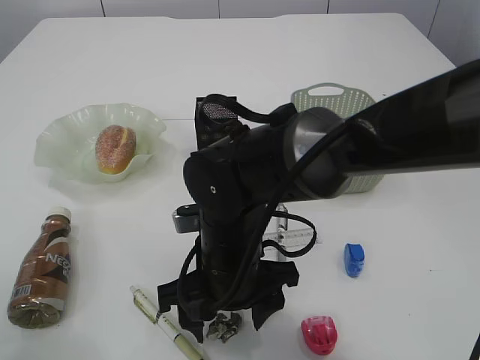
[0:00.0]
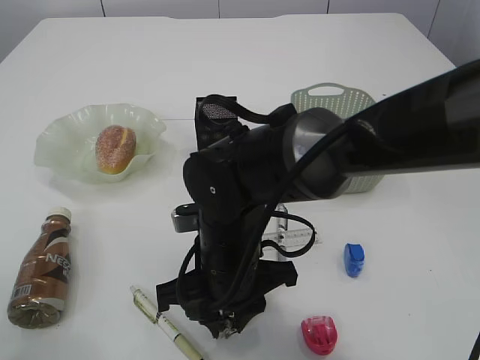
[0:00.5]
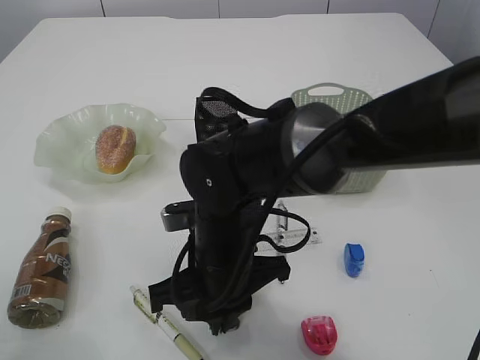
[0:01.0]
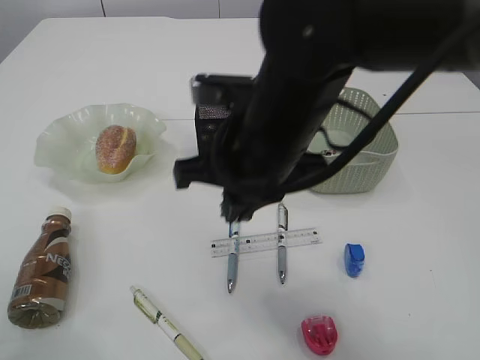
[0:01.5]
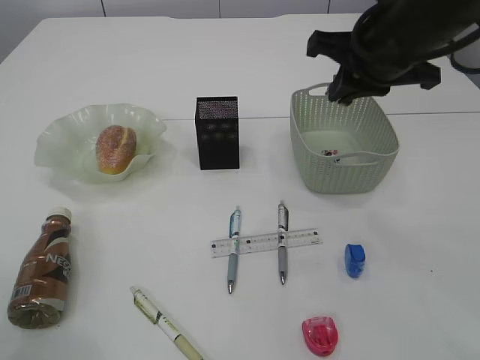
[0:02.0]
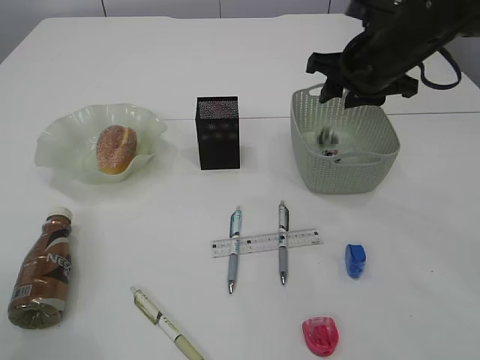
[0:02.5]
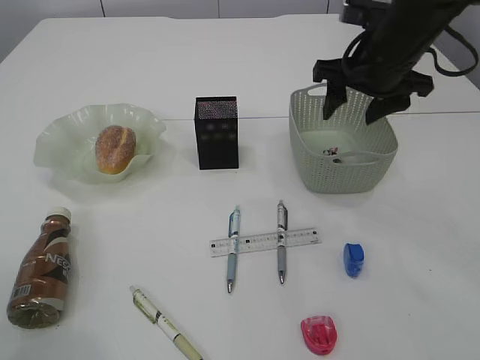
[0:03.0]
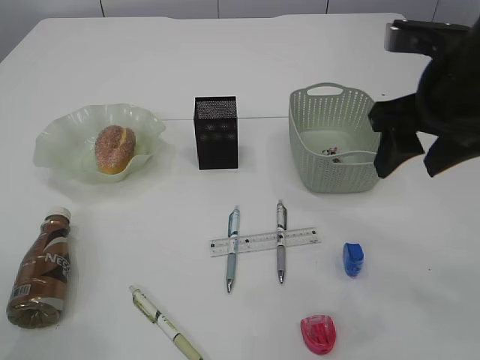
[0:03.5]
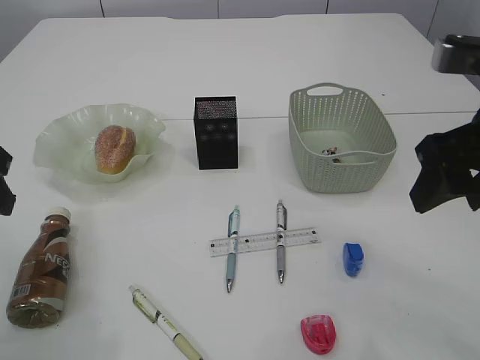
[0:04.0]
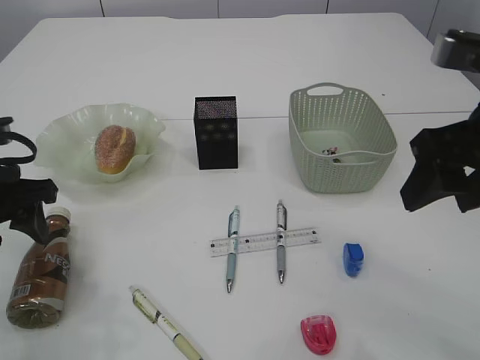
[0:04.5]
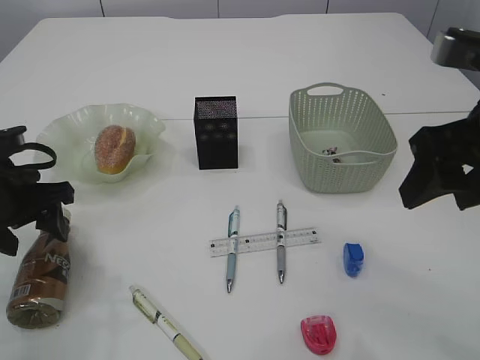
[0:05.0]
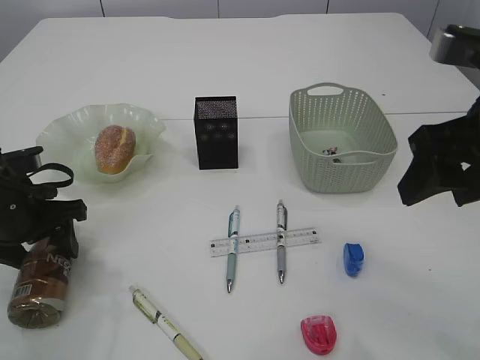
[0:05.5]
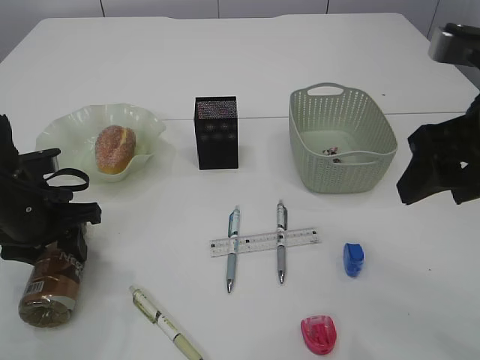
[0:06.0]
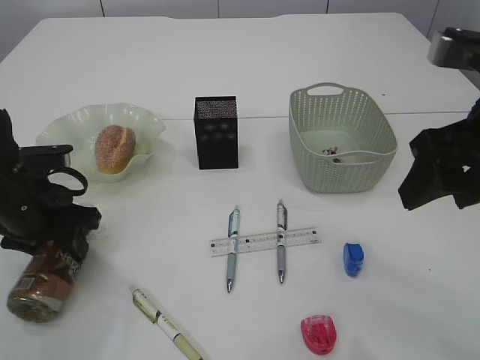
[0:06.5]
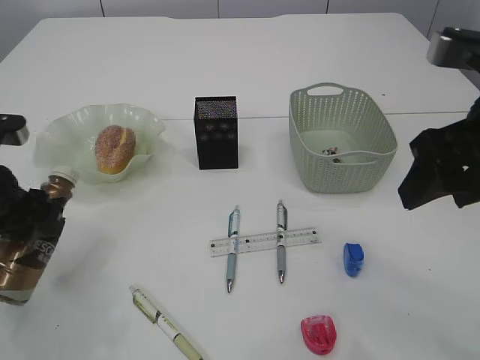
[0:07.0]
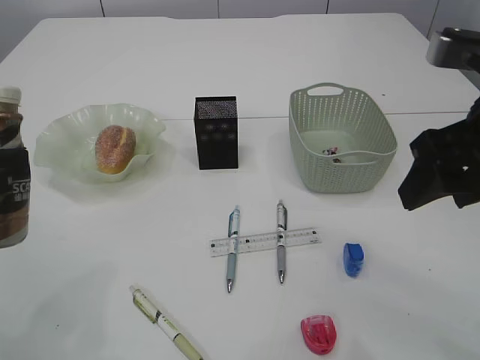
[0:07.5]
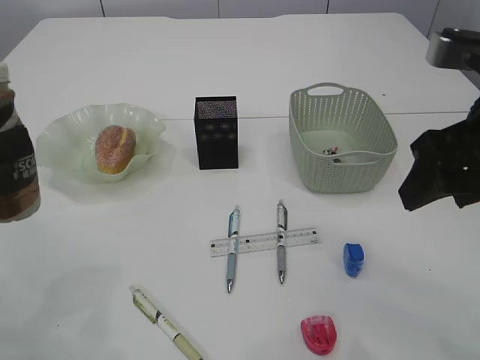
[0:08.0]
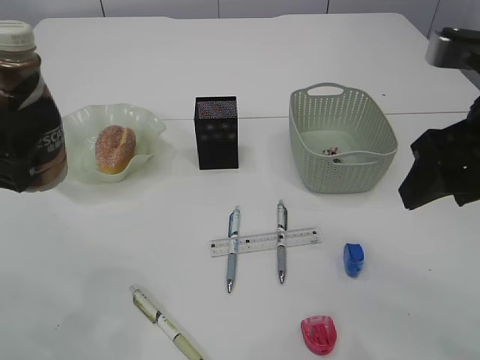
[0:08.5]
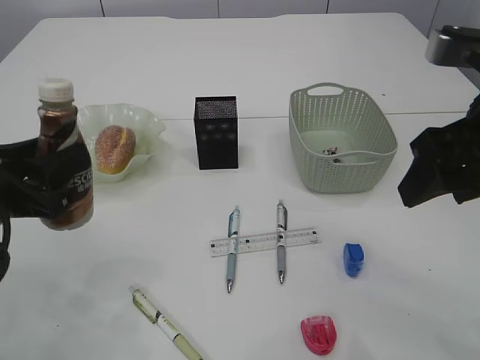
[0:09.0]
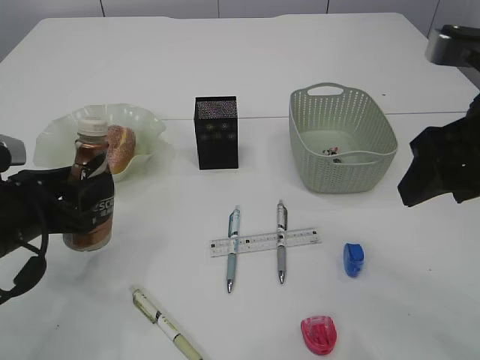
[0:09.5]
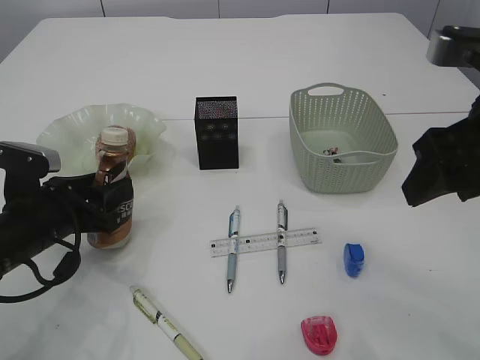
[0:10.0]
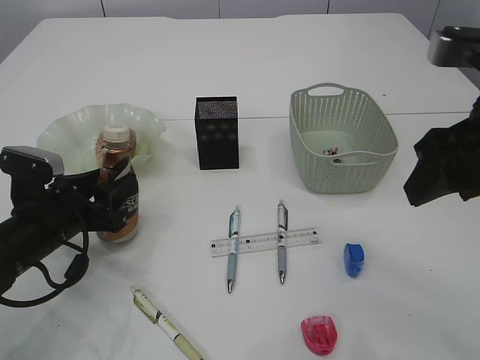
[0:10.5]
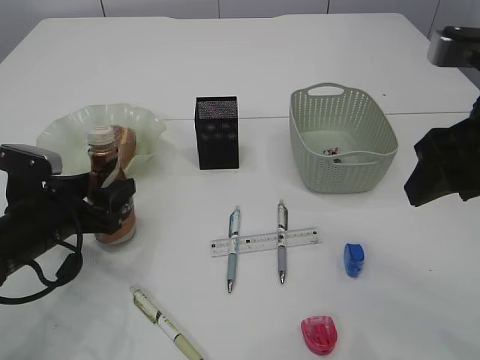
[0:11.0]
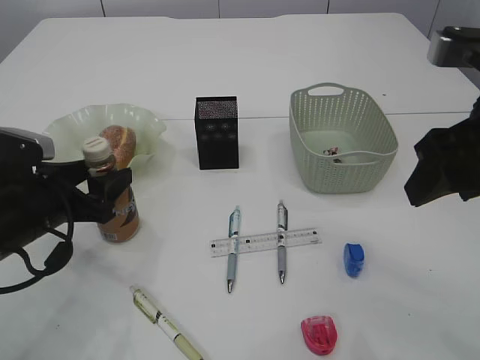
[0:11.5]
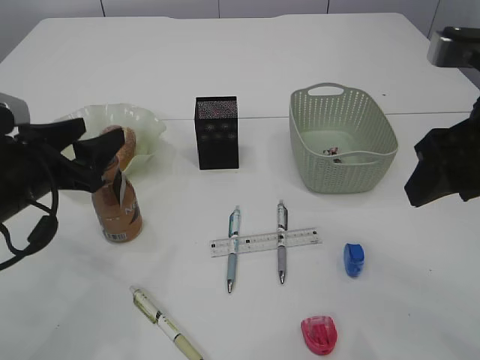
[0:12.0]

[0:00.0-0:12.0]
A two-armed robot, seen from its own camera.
Step, 0:02.0 to 0:02.5: Place the waste paper in the basket.
Step, 0:03.0 to 0:07.0: Pick up the bottle with the left arm.
0:00.0 to 0:02.0: The right gripper shifts some 25 cm to the right, upward and forward, and closes its fingers.
0:02.0 to 0:04.0: The right gripper shifts some 15 cm backward and to the right, and opens. The left gripper moves approximately 5 cm.
0:04.0 to 0:06.0: The left gripper is displaced downward and forward by some 15 cm.
0:06.0 to 0:08.0: The left gripper shifts roughly 15 cm backward and upward.
0:08.0 to 0:10.0: The left gripper is displaced downward and forward by roughly 15 cm.
0:10.0 to 0:12.0: The left gripper shifts about 5 cm upward, and opens up.

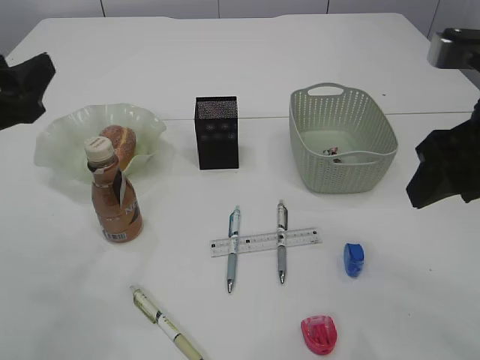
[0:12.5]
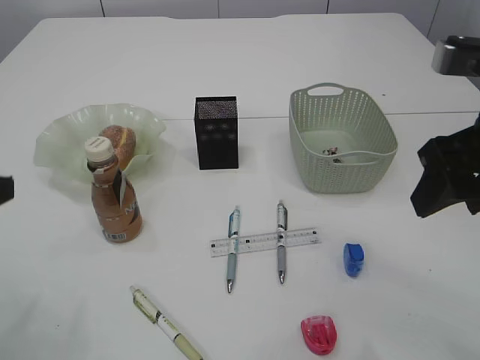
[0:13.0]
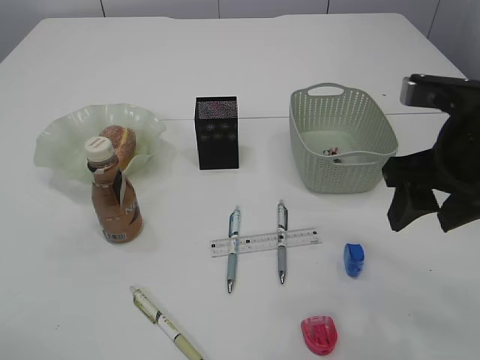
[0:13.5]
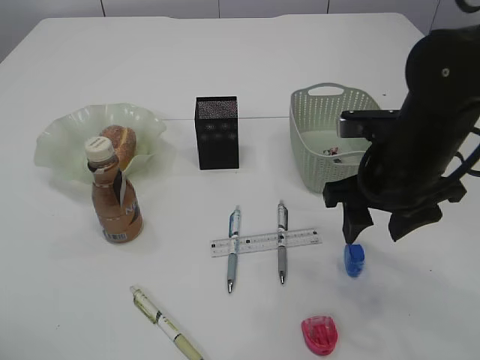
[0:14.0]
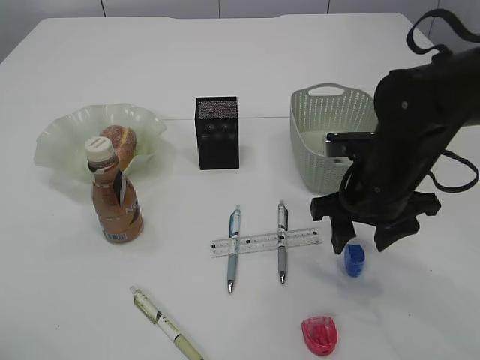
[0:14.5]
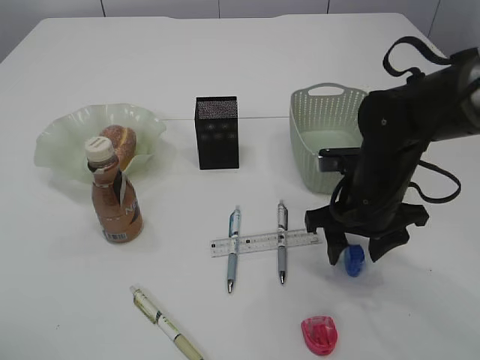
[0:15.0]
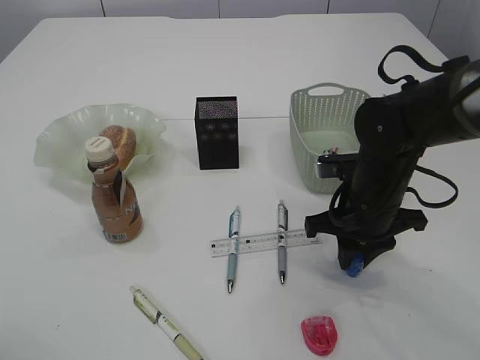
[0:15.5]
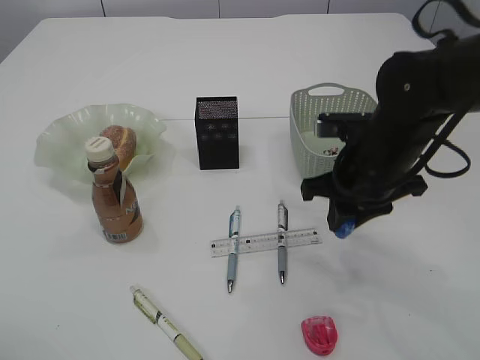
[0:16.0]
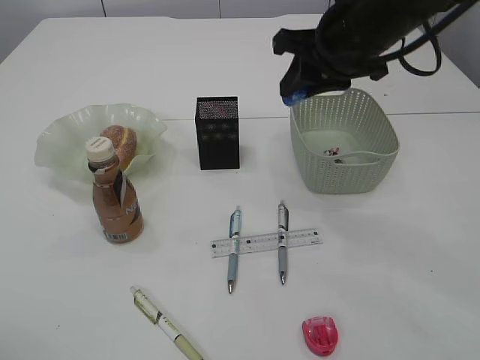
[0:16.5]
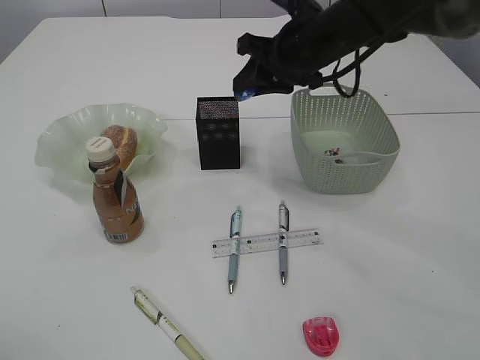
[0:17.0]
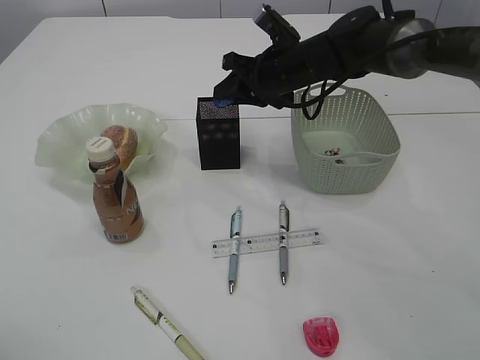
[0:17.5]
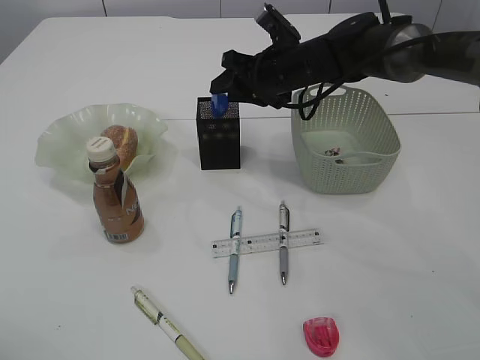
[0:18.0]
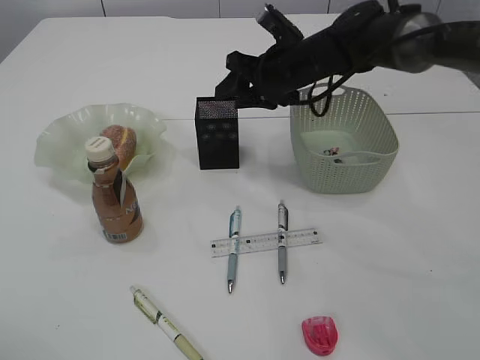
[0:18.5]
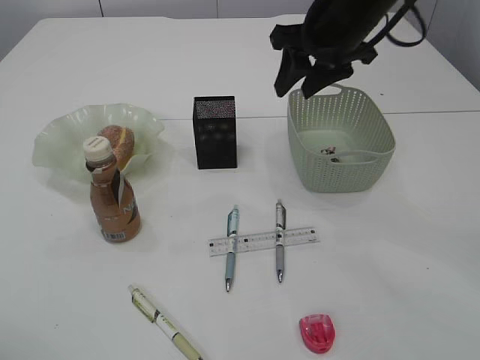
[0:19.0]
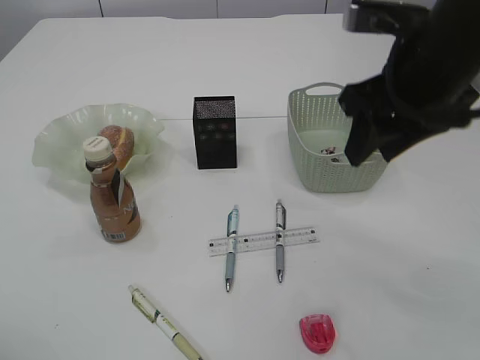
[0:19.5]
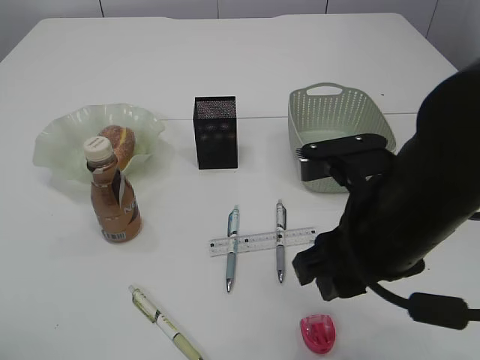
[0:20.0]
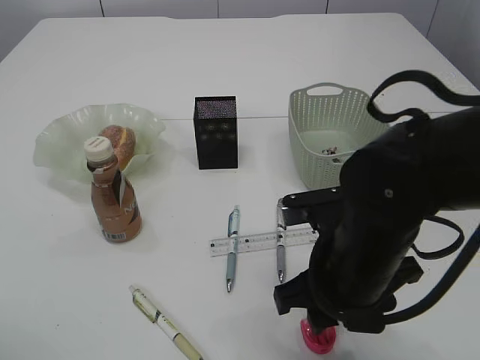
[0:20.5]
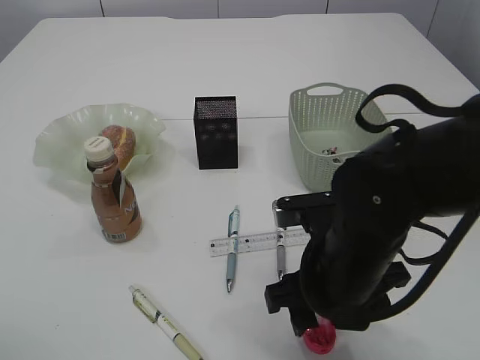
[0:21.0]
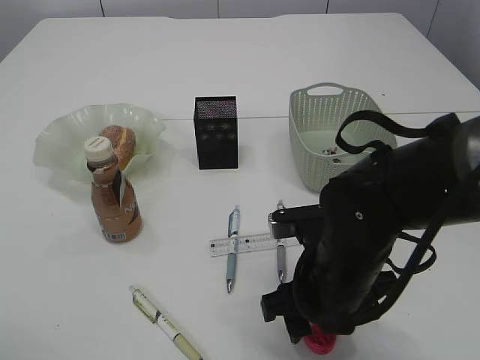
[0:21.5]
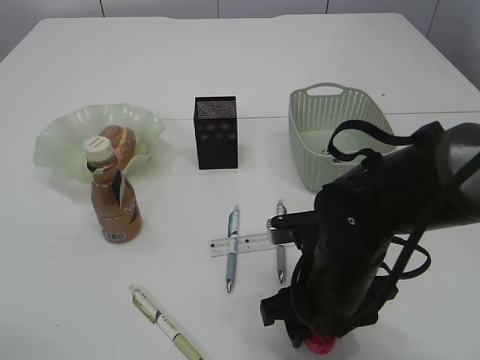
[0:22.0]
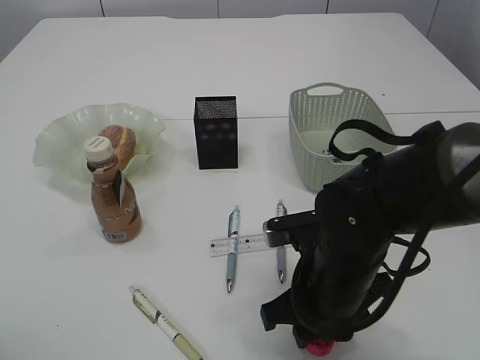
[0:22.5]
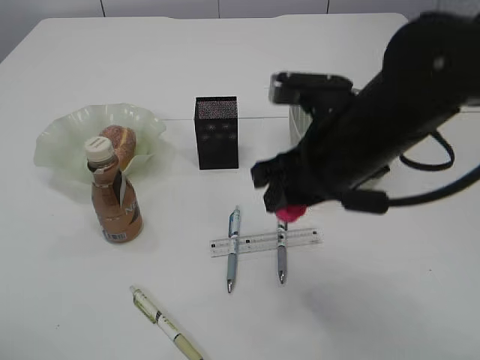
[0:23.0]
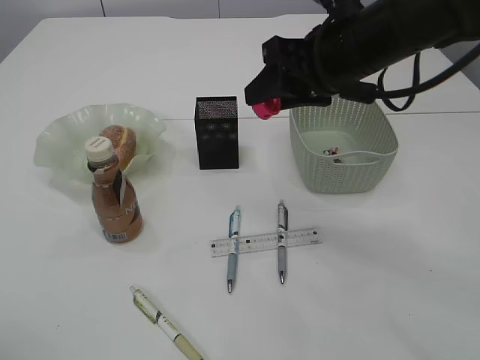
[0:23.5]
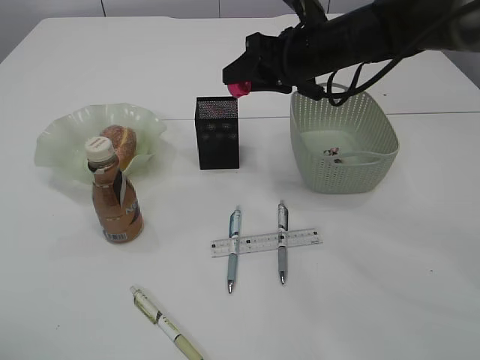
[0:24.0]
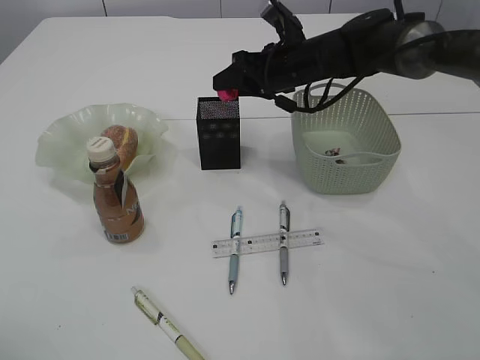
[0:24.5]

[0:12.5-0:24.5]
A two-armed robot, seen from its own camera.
Step, 0:12.5 to 0:16.0: Pick up the blue pencil sharpener.
Step, 0:16.5 to 0:18.0: Place the blue pencil sharpener into the pen holder.
Step, 0:18.5 to 0:23.0: Pick up the red pencil sharpener.
0:12.5 to 0:14.5: The left gripper goes some 10 cm backward; the right gripper travels downward and forward by approximately 15 cm.
0:14.5 to 0:16.5: The right gripper shifts approximately 15 cm upward and forward, and closes its fingers.
0:16.5 to 0:18.5: The right gripper is displaced forward and downward by approximately 15 cm, and opens its fingers.
0:18.5 to 0:20.5: The right gripper shifts some 25 cm backward.
0:20.5 to 0:22.5: The grippers make only small movements.
0:22.5 to 0:24.5: The right gripper heads forward, covering approximately 25 cm.

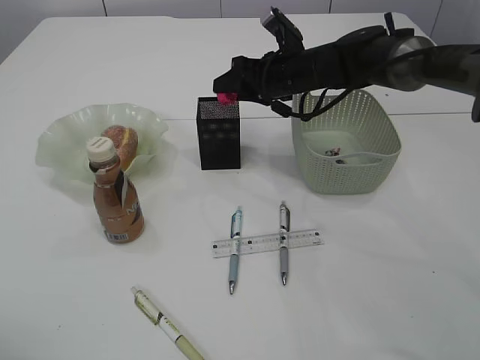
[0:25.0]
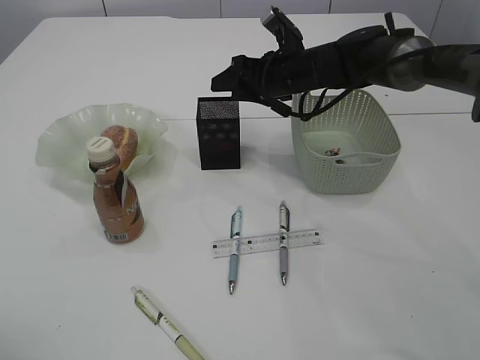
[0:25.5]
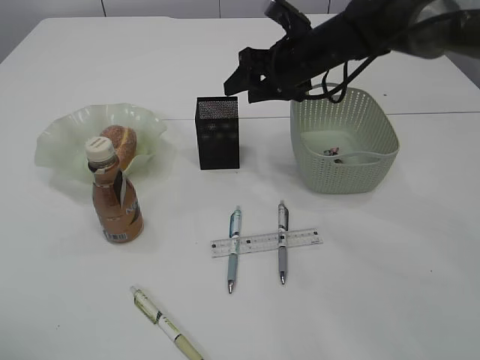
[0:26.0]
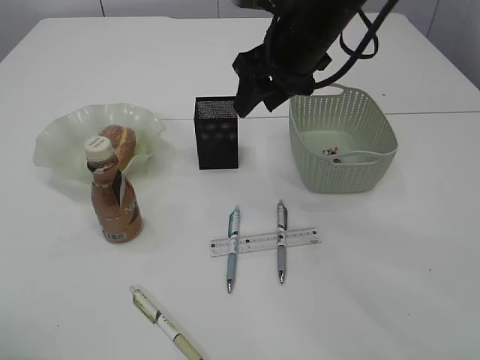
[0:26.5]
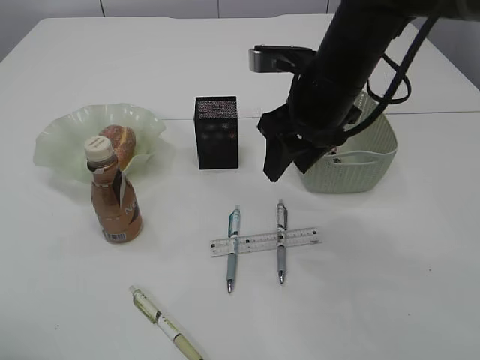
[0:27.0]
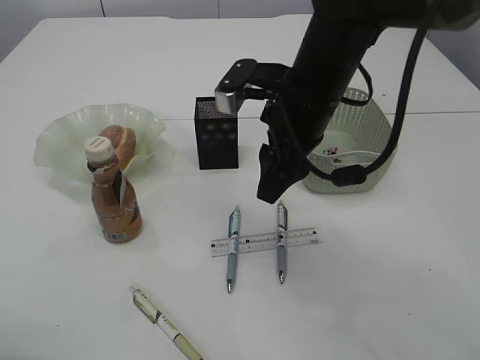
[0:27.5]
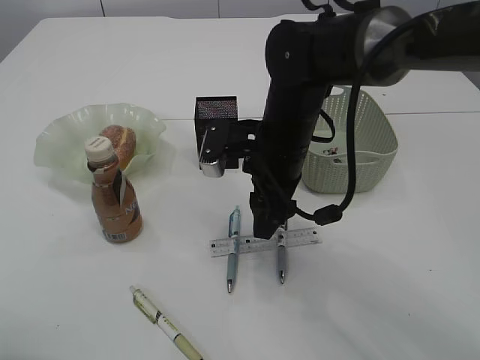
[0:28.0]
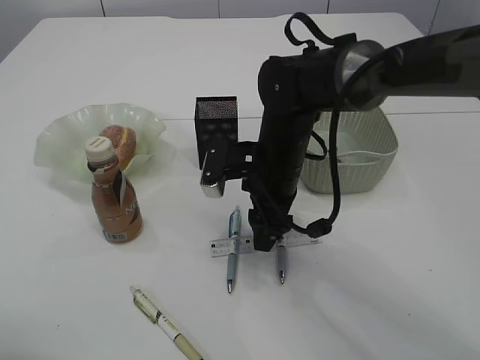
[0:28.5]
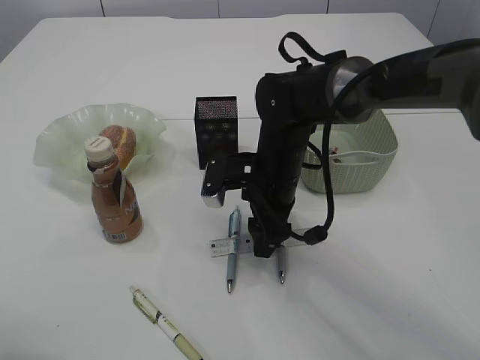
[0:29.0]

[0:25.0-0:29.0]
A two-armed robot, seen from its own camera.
0:25.0 to 0:27.0: The right gripper moves backward and upward, roughly 15 cm.
0:27.0 to 0:29.0: The right gripper heads downward and to the left, covering about 15 cm.
